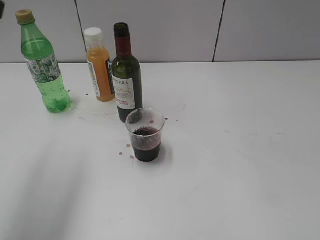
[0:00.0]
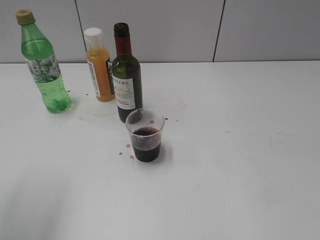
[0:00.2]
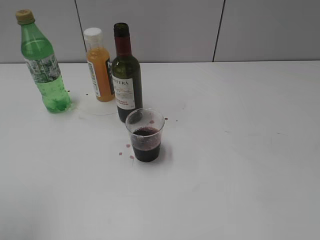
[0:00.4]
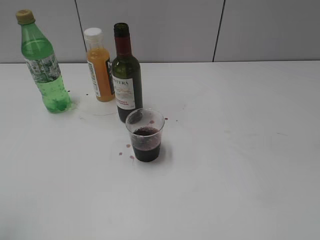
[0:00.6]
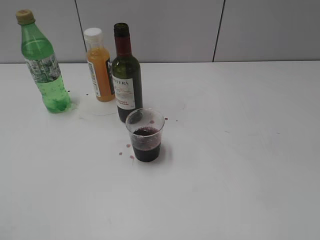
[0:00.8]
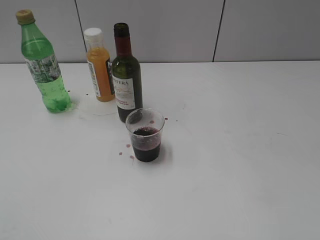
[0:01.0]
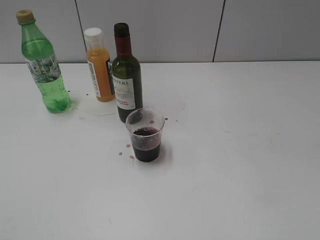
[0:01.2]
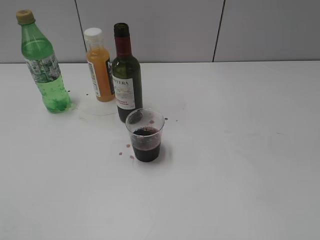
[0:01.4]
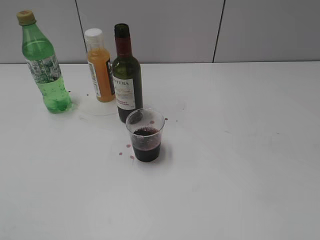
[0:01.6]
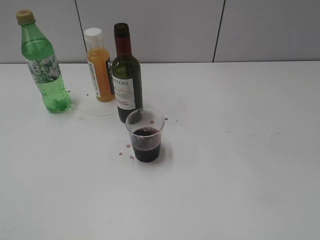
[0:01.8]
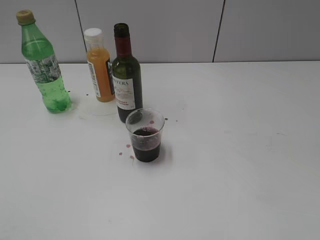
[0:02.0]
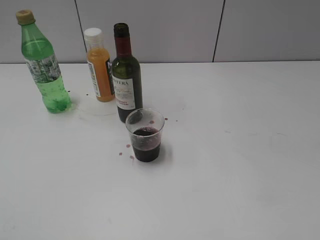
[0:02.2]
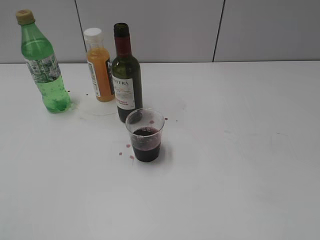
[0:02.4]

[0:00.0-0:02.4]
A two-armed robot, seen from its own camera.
0:00.0 to 0:01.2: The left gripper goes roughly 20 cm backward, downward and to the left.

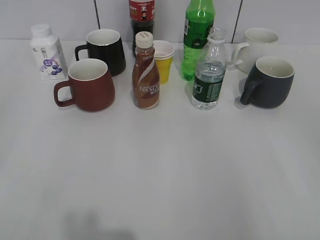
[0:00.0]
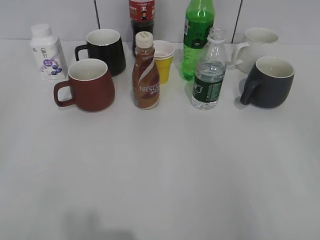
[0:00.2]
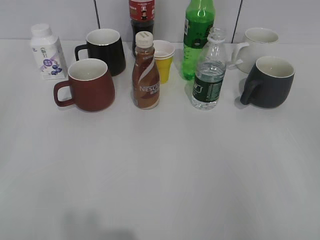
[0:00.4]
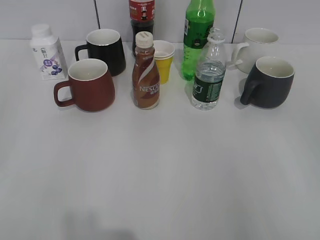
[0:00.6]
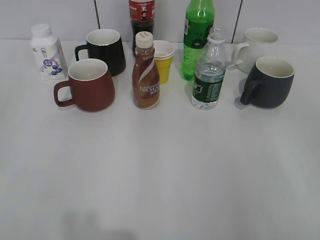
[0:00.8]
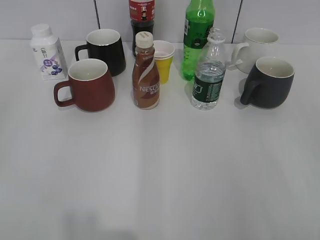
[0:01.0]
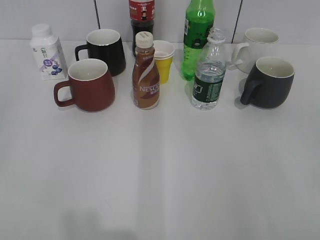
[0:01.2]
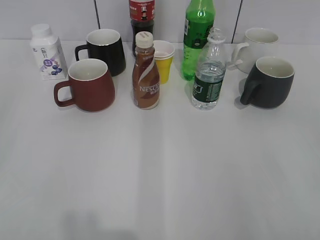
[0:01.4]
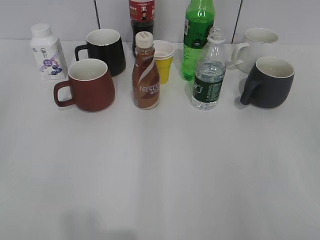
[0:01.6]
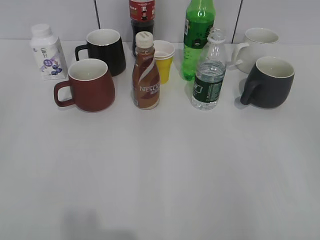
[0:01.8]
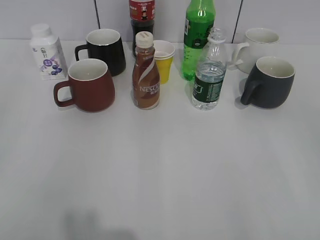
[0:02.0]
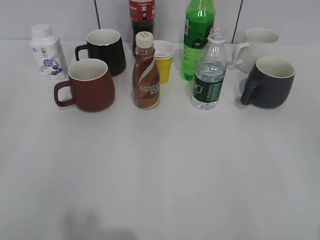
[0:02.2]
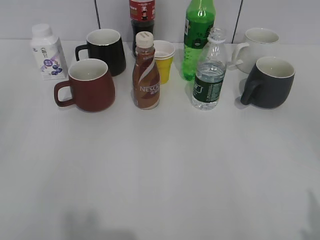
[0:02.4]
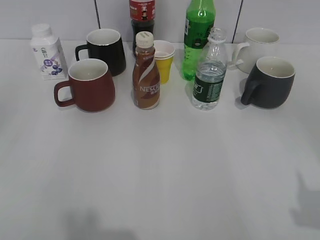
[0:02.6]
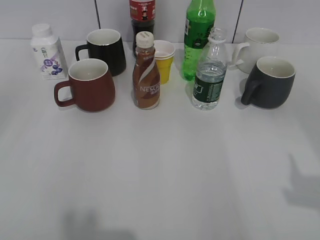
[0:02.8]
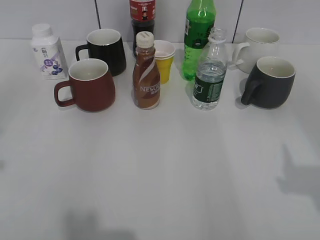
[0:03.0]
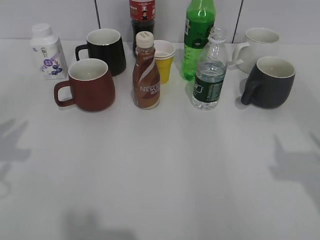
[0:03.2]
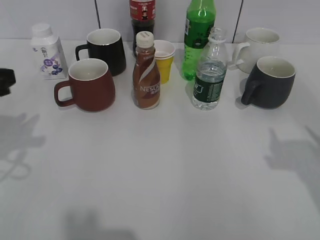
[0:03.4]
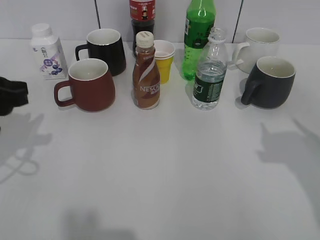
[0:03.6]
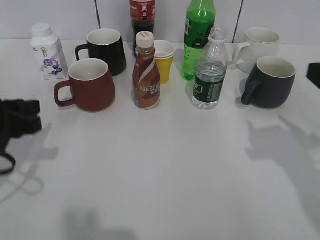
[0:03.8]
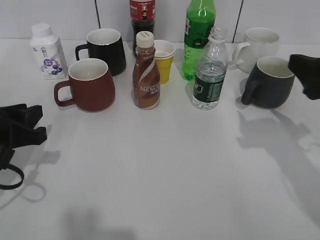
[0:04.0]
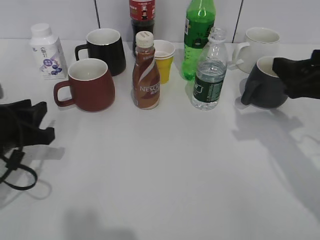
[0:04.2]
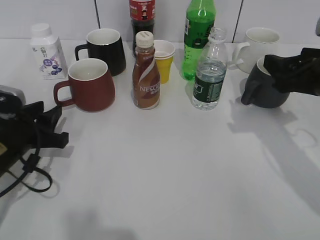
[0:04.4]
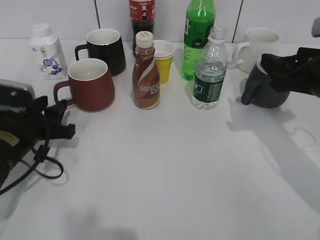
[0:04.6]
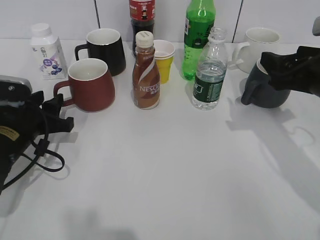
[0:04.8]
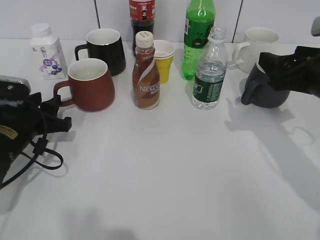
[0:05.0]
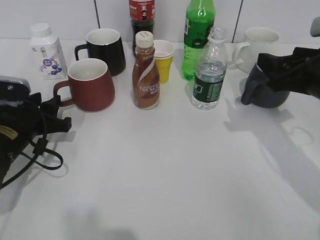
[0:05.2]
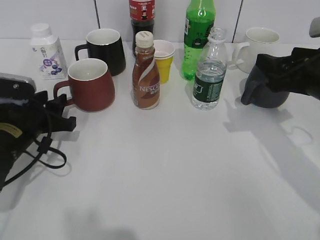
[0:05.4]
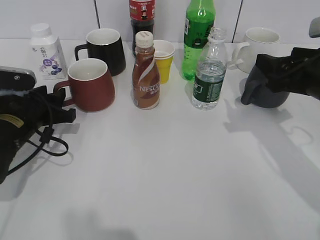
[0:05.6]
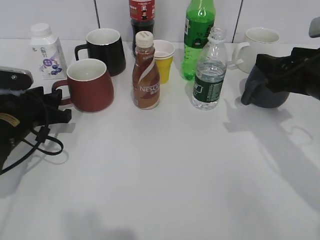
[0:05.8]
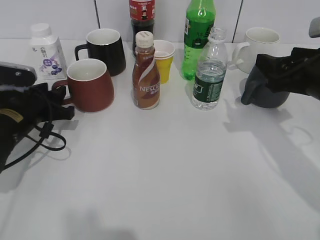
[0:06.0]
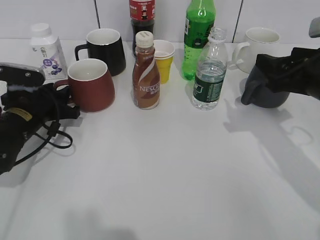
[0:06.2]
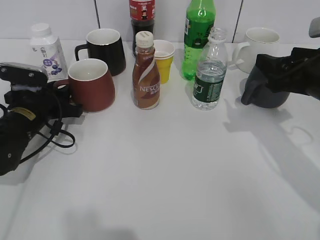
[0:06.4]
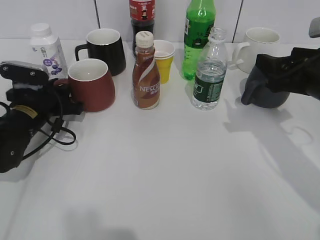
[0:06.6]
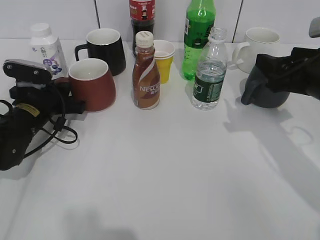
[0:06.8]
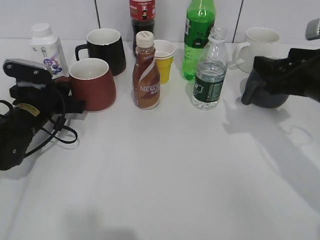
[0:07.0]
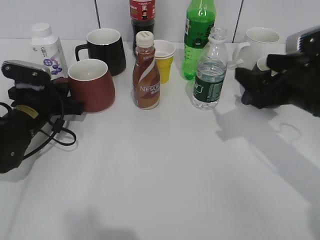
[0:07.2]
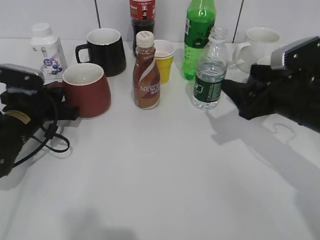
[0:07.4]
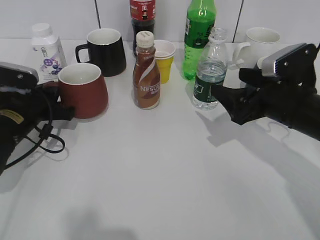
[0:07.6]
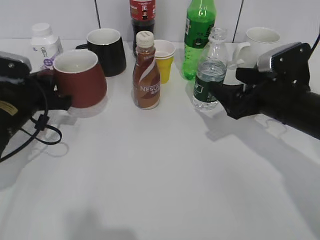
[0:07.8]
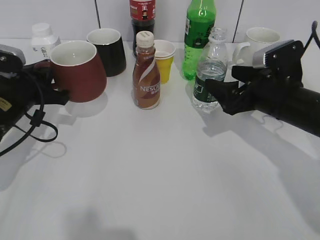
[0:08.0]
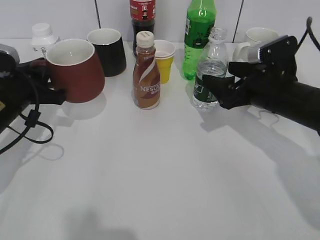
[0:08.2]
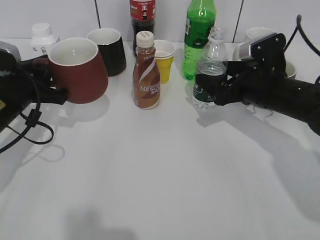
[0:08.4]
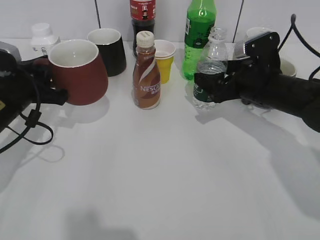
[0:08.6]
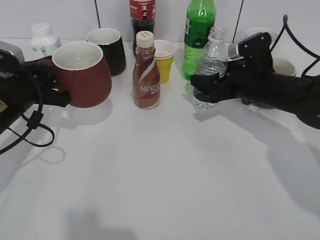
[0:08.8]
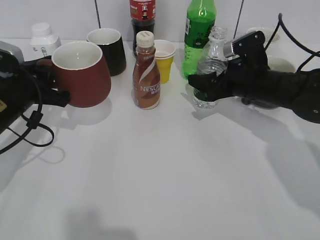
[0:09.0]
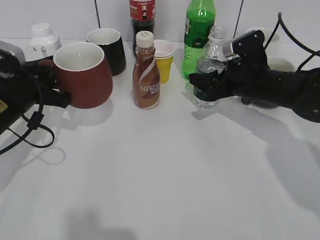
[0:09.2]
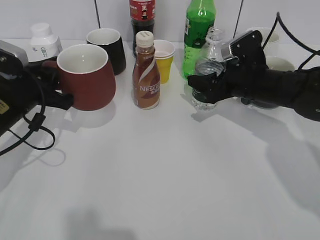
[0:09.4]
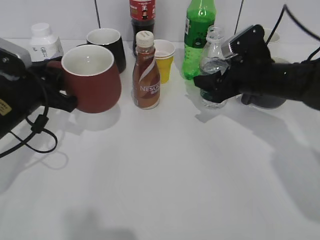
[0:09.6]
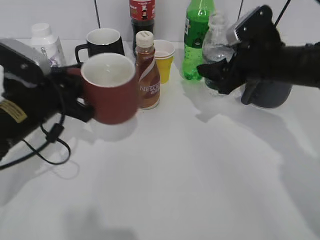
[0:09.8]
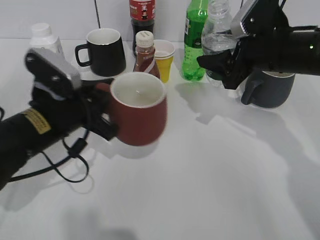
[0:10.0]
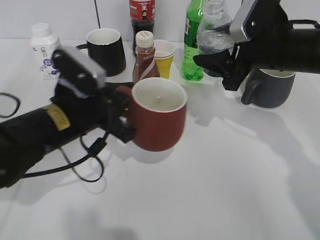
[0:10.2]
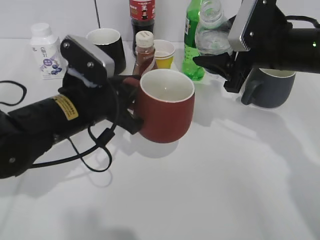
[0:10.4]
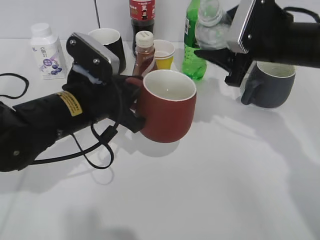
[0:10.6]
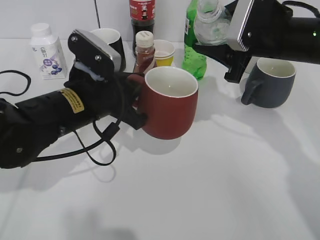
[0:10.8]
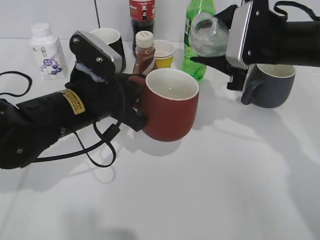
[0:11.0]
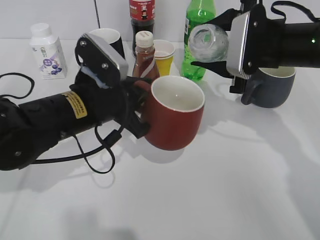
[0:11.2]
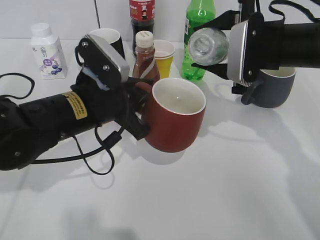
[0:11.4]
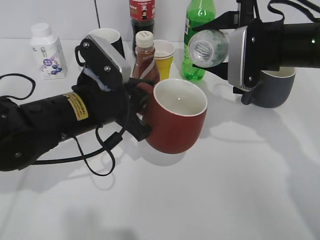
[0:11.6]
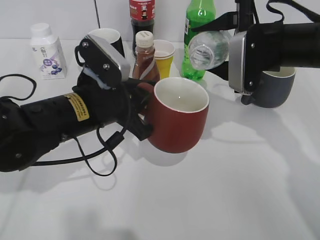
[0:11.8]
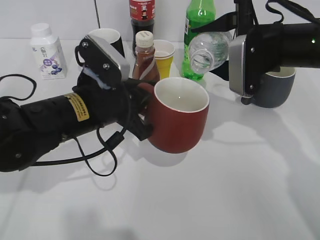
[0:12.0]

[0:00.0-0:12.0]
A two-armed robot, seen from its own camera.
Step, 0:02.2 to 0:06.8: Grasp the red cup with left gripper.
Step, 0:07.0 to 0:09.0: Grasp the bottle with water with right gripper.
0:01.6 to 0:03.0: Both grippers travel together forward, roughly 10 cm.
0:03.0 to 0:04.4: The right gripper travels forward and downward by approximately 20 cm; the left gripper moves downward, forward and to the right, approximately 20 cm.
0:04.4 to 0:06.0: The left gripper moves forward, about 5 cm.
0:06.0 to 0:07.6: The right gripper ends up about 5 cm from where it was; the left gripper closes.
0:07.6 to 0:09.0: The left gripper goes about 5 cm upward, while the right gripper shifts about 10 cm forward.
0:09.0 to 0:10.4: The right gripper is displaced upward by roughly 10 cm, and closes up. The left gripper travels to the right by some 10 cm.

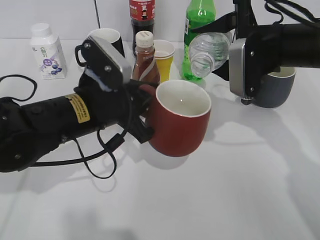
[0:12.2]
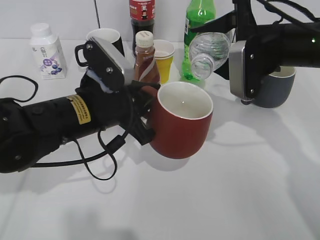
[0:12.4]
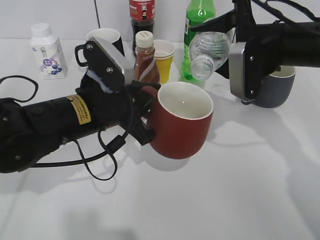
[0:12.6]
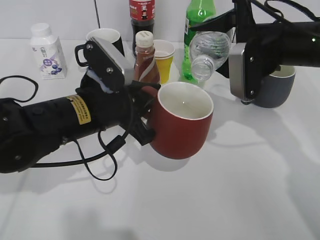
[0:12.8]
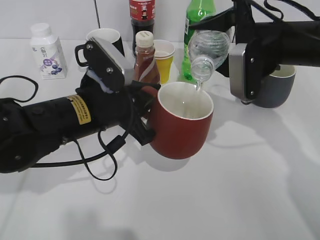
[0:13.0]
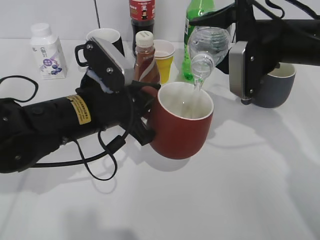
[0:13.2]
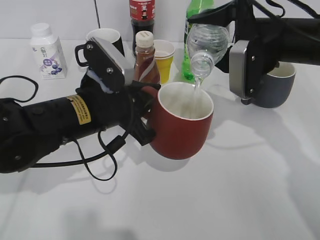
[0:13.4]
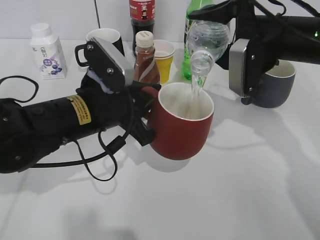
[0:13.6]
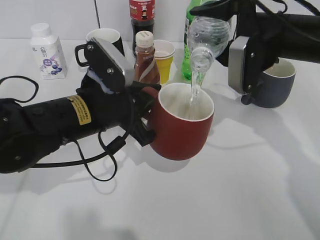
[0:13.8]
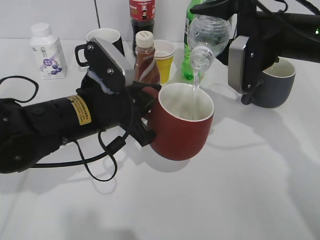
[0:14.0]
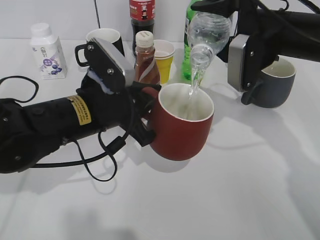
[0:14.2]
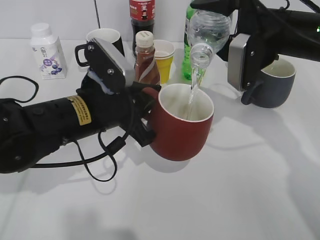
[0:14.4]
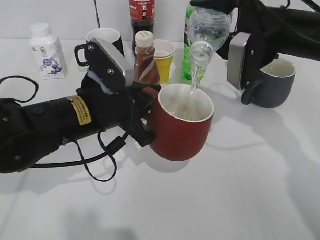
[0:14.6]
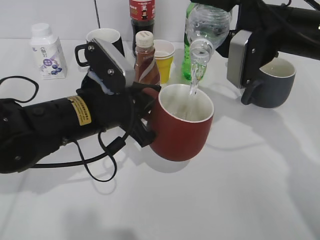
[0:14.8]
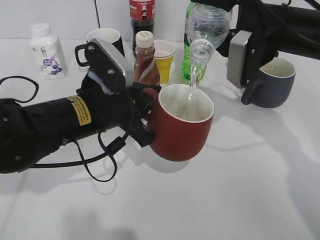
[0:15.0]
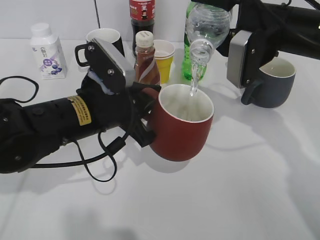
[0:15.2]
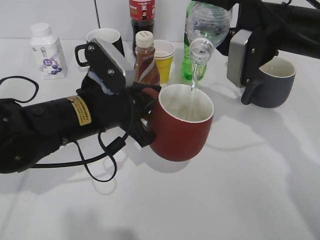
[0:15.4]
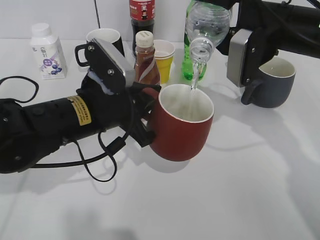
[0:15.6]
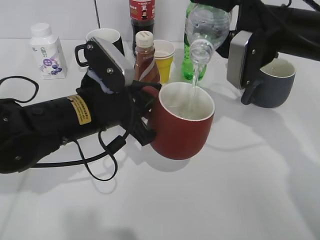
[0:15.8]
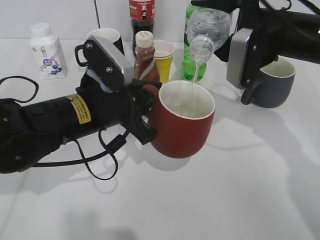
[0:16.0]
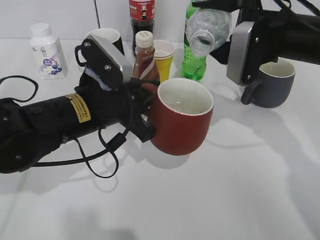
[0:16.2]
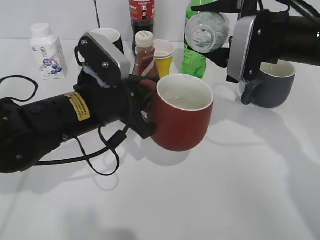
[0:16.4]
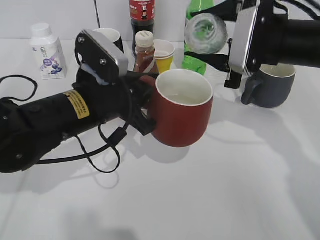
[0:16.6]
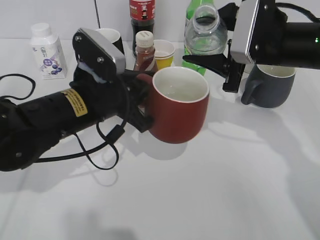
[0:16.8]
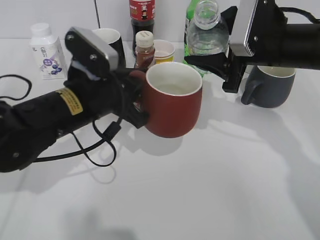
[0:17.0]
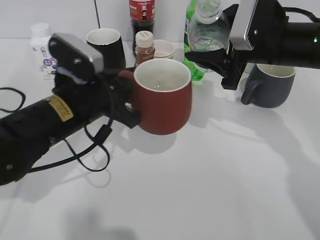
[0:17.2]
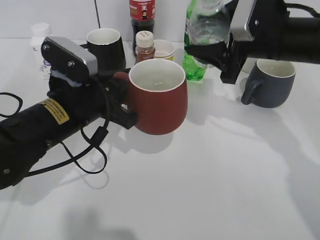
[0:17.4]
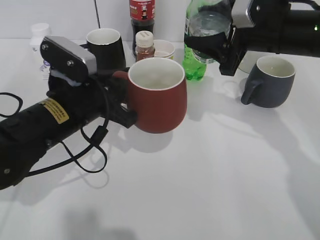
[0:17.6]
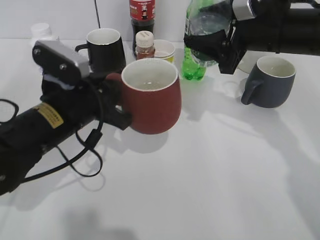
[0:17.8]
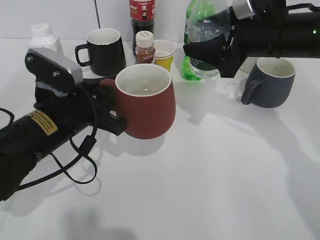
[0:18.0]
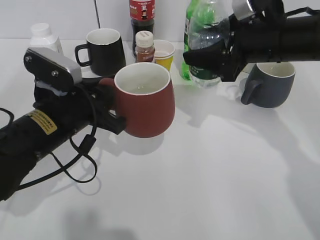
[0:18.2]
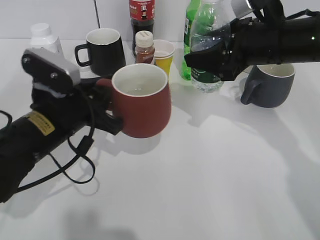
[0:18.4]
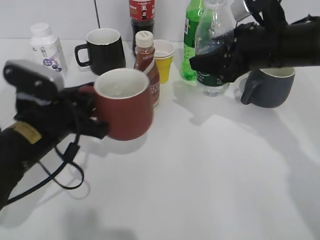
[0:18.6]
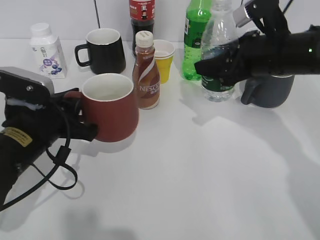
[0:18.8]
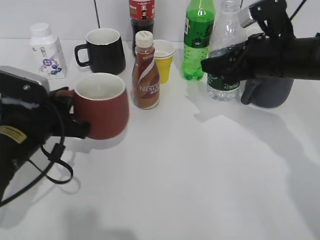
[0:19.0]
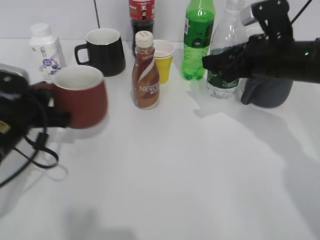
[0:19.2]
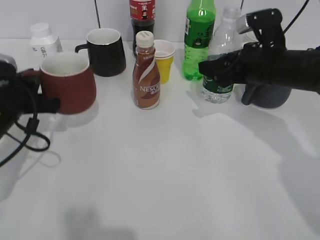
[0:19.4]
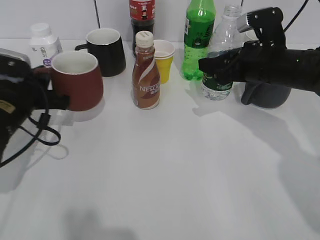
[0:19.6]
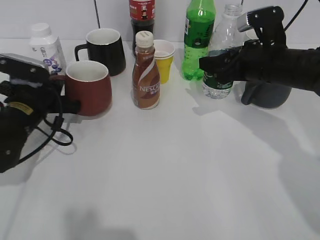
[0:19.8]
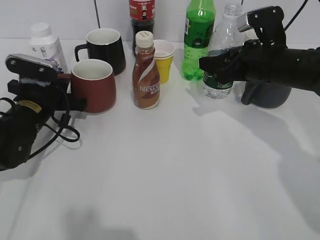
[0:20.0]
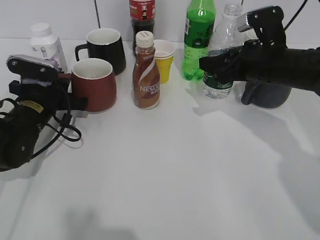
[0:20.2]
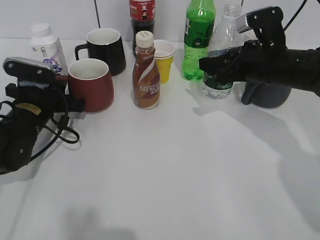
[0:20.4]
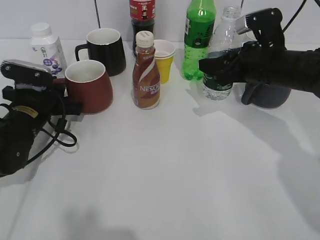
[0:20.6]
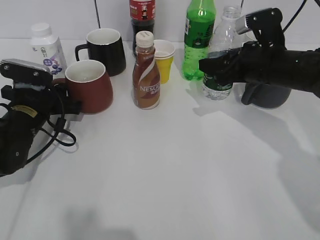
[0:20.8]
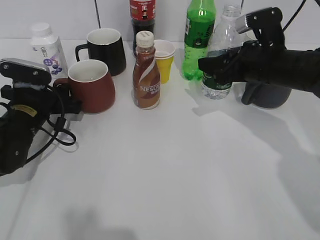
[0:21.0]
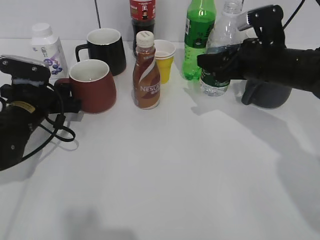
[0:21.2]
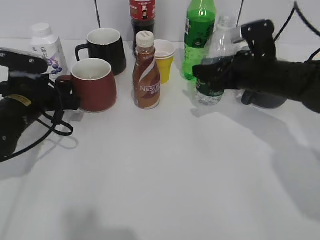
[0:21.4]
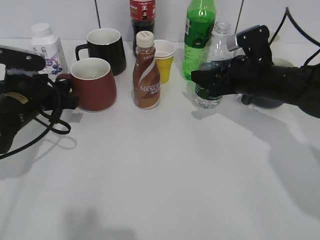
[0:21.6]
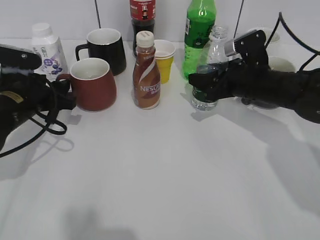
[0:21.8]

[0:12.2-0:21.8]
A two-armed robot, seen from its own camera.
Step, 0:12.2 to 0:16.2: Pour the water from bottle to cup with right gripper.
0:12.2 to 0:13.8: The grippers move only a little.
0:13.8 to 0:15.4: The grippers move only a little.
0:17.0 to 0:18.6: The left gripper is displaced to the left by approximately 5 cm.
0:18.6 to 0:20.2: The left gripper travels forward and to the left by about 10 cm. Meanwhile the right gripper ends up roughly 5 cm from where it was.
0:20.2 to 0:21.8: The left gripper opens up.
